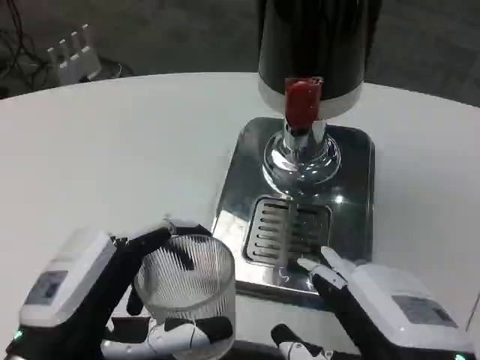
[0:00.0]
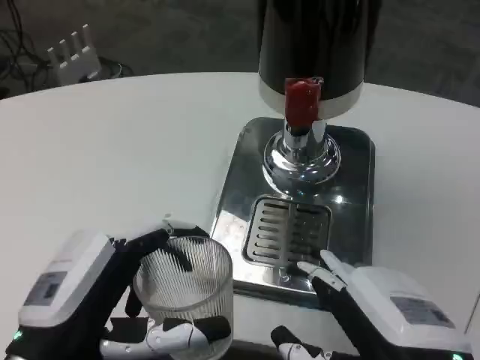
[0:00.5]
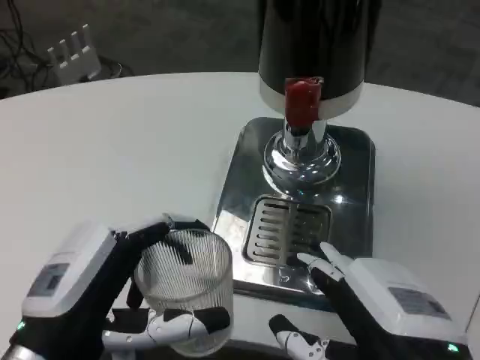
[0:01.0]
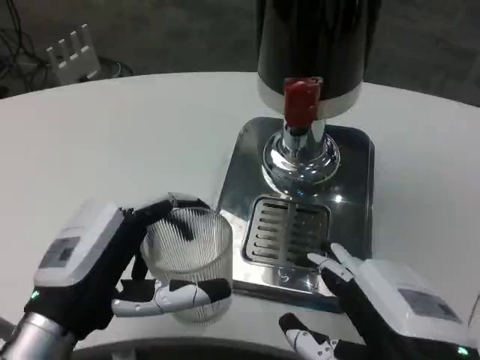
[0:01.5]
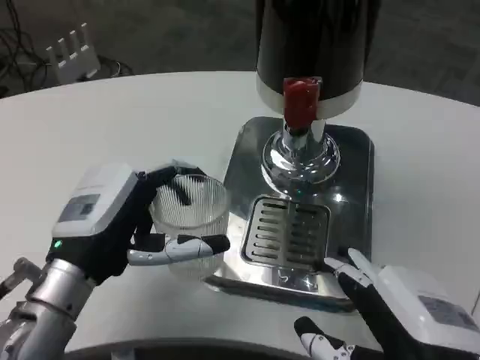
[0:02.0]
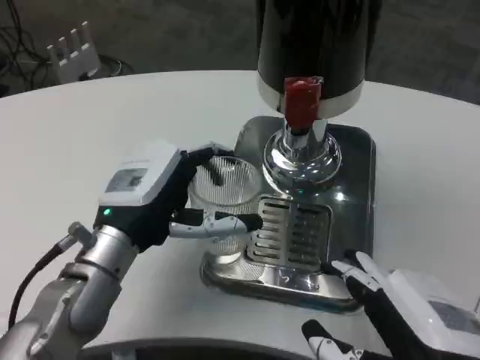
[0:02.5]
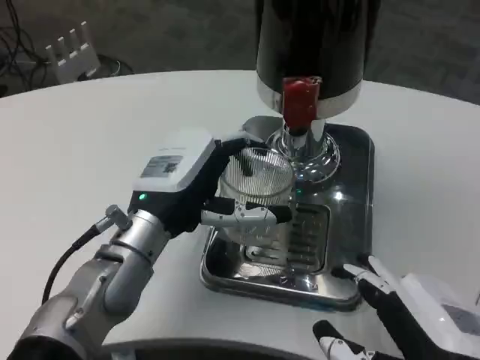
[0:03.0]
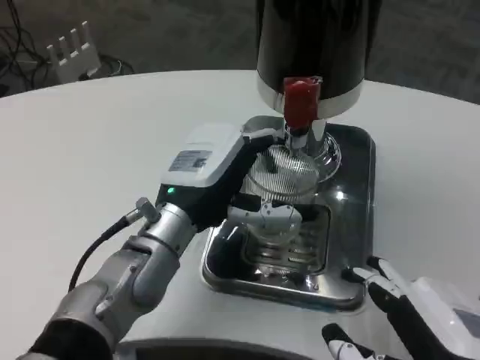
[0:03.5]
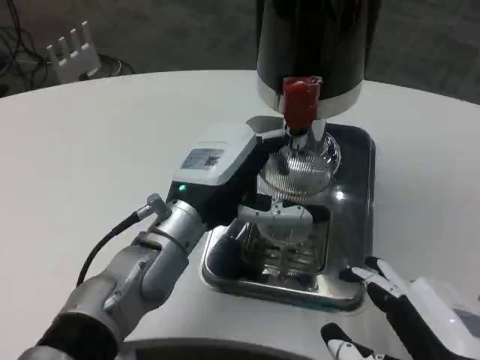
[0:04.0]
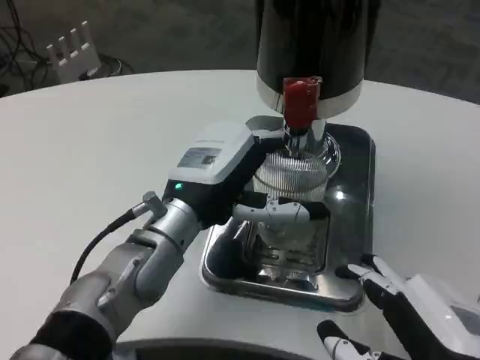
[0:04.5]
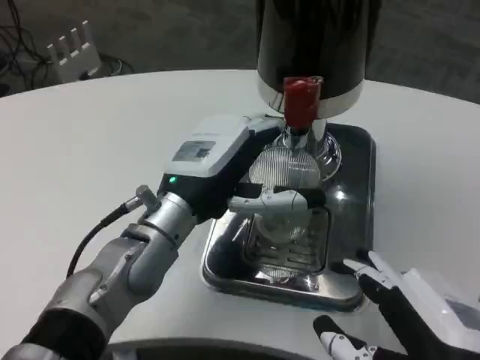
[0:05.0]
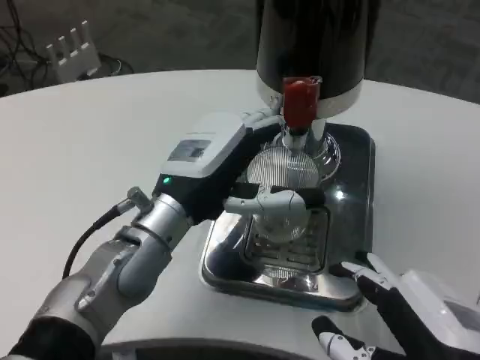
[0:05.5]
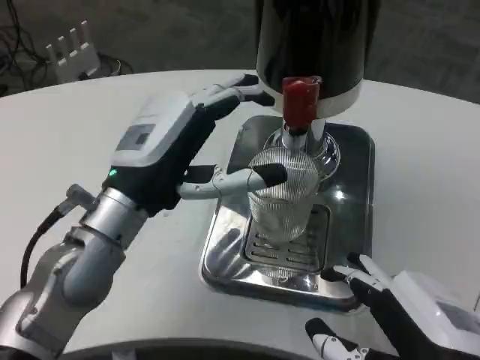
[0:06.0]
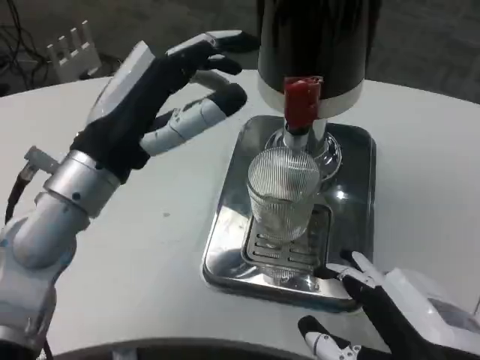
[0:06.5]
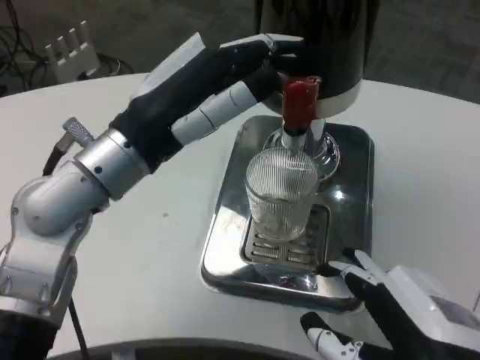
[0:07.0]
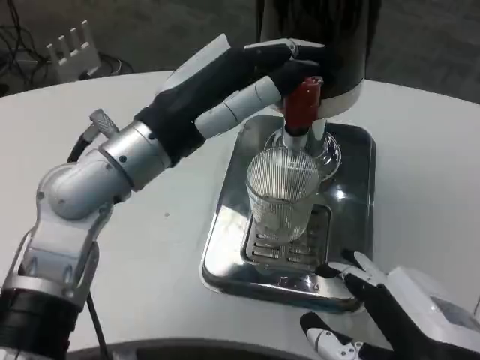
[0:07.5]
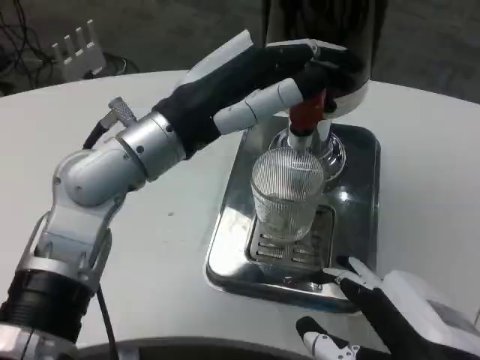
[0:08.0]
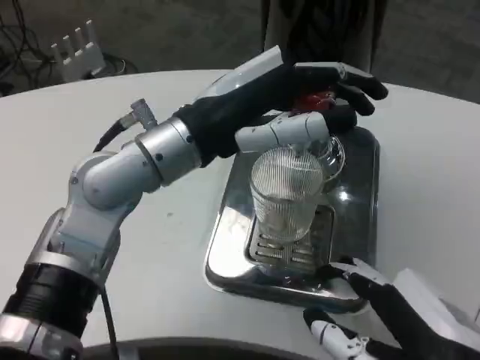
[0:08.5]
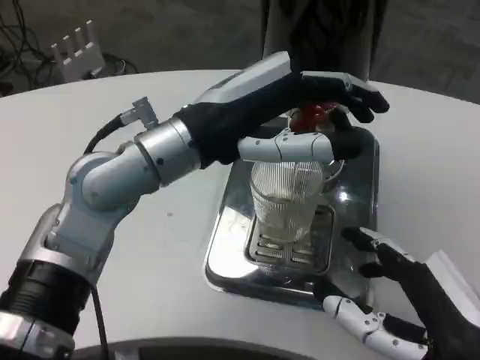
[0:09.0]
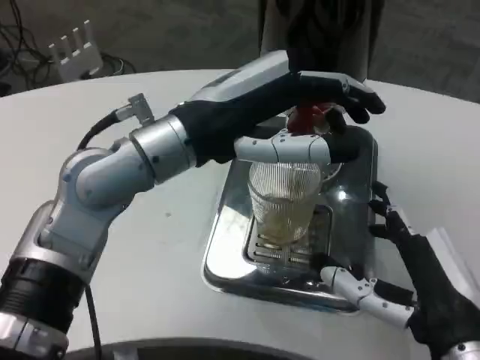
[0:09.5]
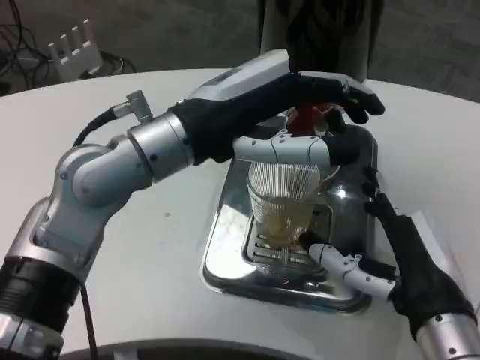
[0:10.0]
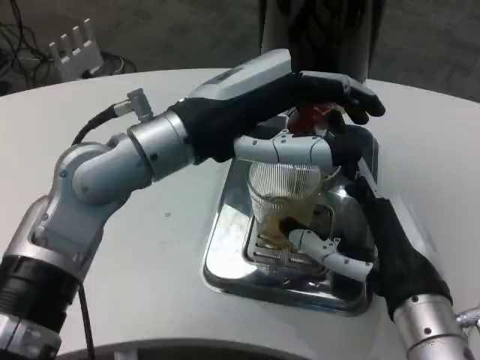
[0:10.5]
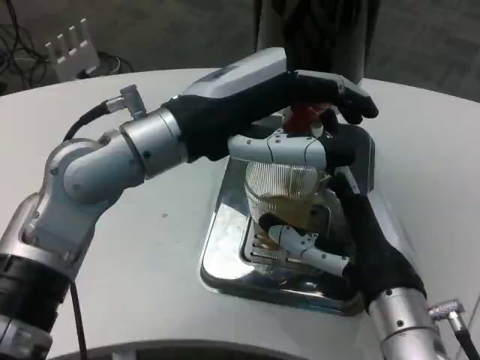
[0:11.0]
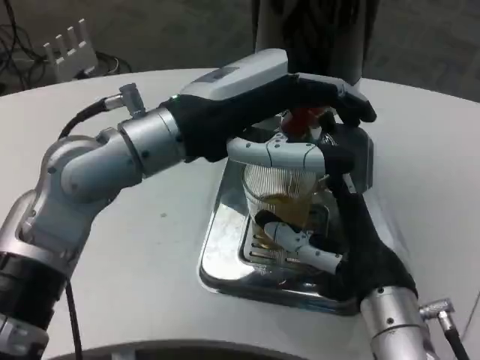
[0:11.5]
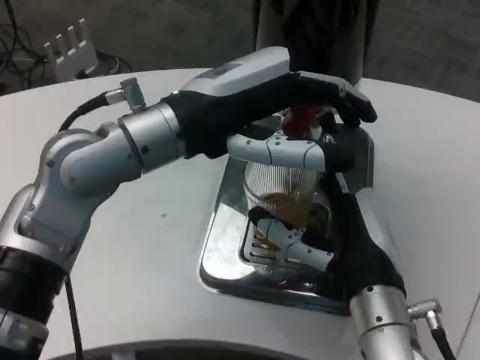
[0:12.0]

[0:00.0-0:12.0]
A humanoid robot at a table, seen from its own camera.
Task of the whole recording: Grasp the cup under the faucet to collect the drink, then remove the cup.
0:00.0 to 0:02.0: The left hand goes some 10 cm forward.
0:02.0 to 0:04.0: The left hand travels to the right and forward by roughly 10 cm.
0:04.0 to 0:06.0: The left hand moves to the left, some 5 cm.
0:06.0 to 0:08.0: The left hand is displaced upward by roughly 5 cm.
0:08.0 to 0:10.0: The right hand travels forward by about 10 cm.
0:10.0 to 0:12.0: The right hand shifts approximately 5 cm to the left.

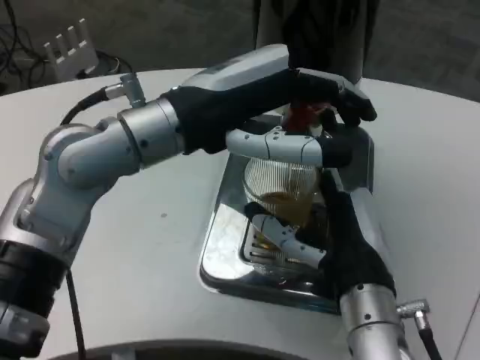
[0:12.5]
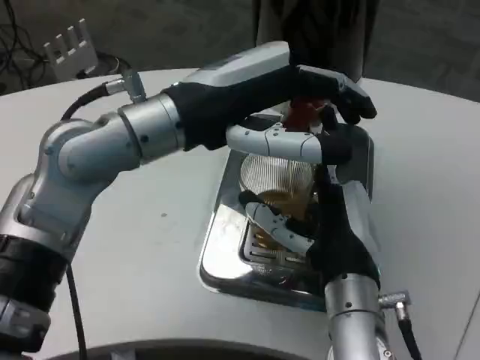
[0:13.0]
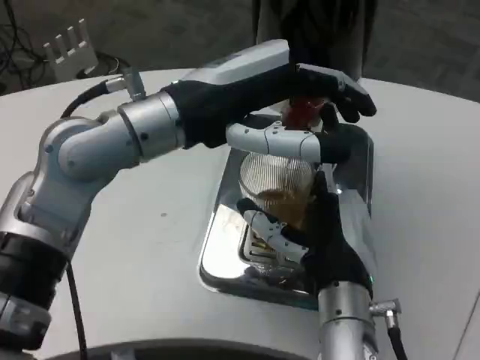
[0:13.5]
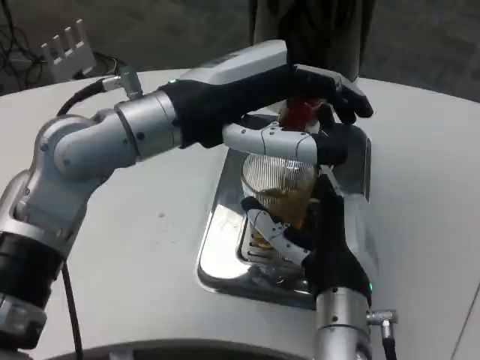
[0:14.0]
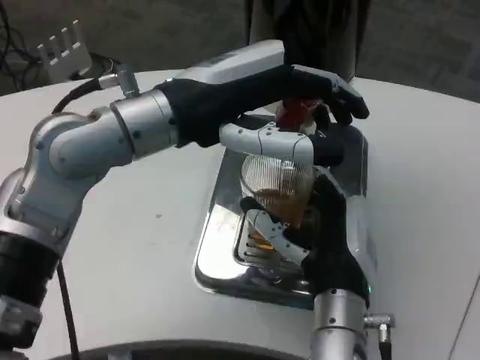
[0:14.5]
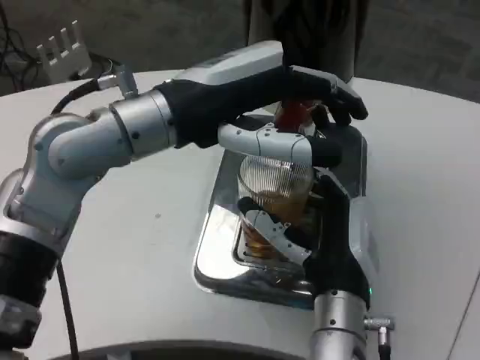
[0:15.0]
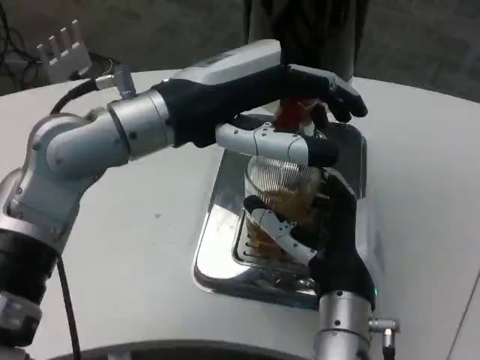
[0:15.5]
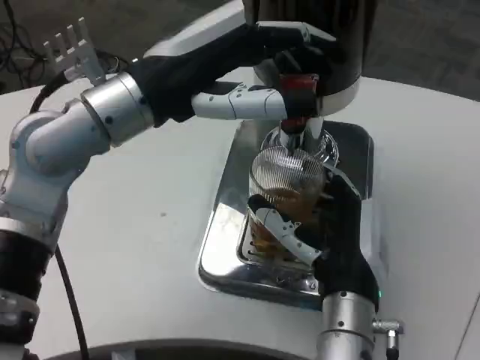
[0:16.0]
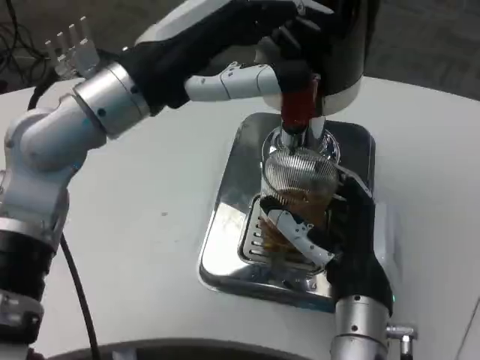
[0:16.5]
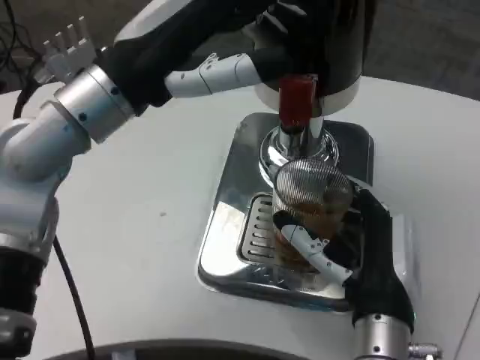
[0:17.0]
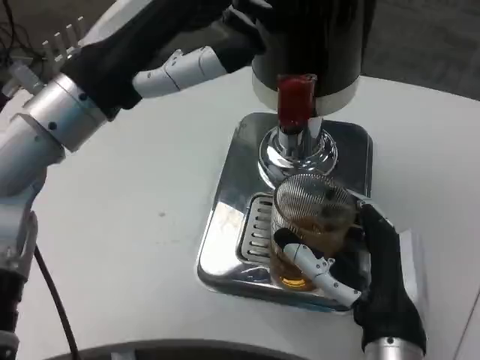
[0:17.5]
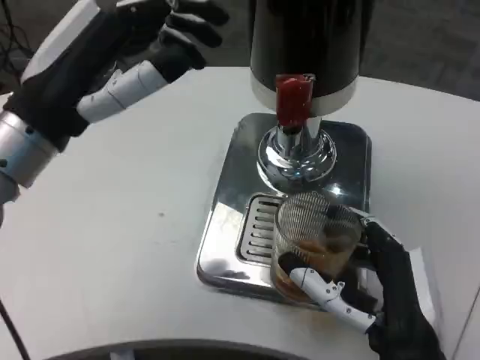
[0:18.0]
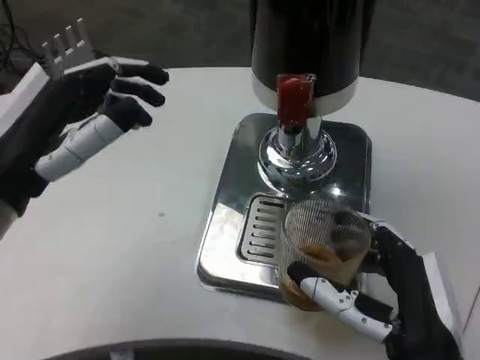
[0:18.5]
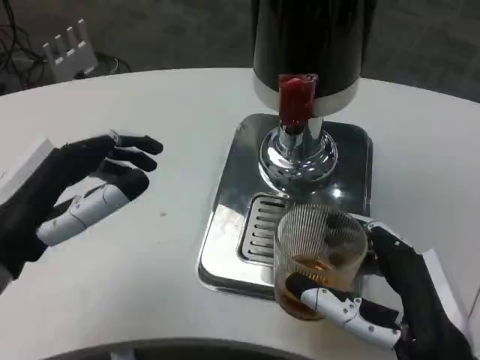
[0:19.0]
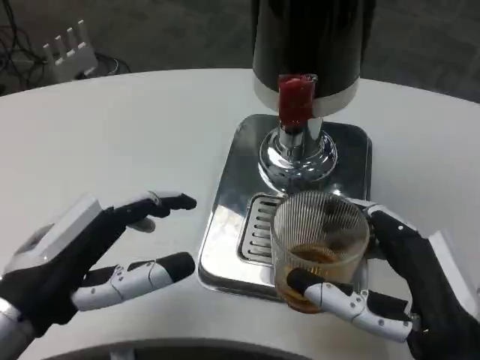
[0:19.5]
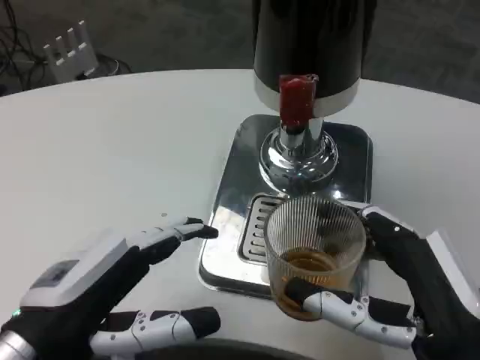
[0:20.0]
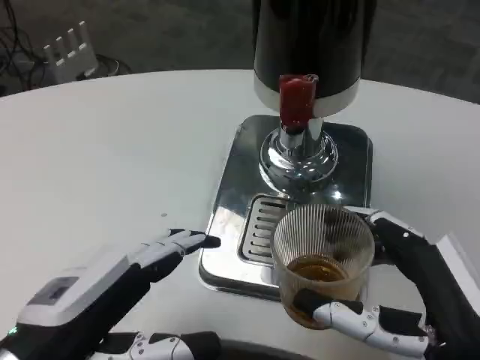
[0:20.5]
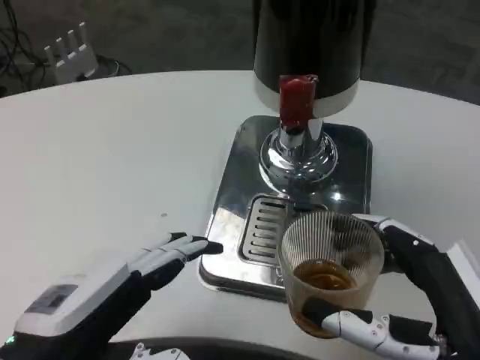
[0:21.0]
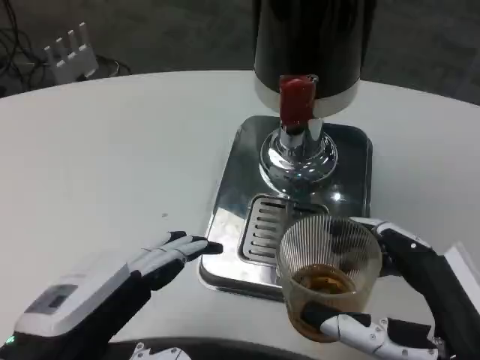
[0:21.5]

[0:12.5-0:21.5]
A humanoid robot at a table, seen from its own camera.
Task of the whole recording: Grasp the cup under the faucet to collect the drink, then remove the cup.
0:17.0 to 0:19.5: The right hand shifts approximately 10 cm backward and to the right; the left hand is displaced downward, backward and to the left by roughly 20 cm.

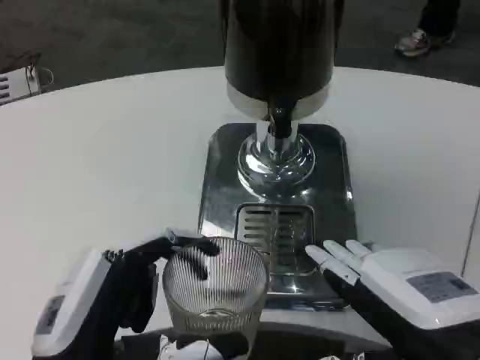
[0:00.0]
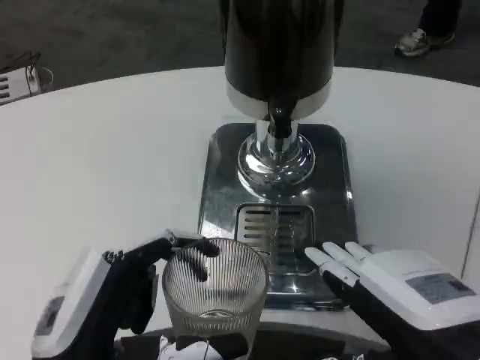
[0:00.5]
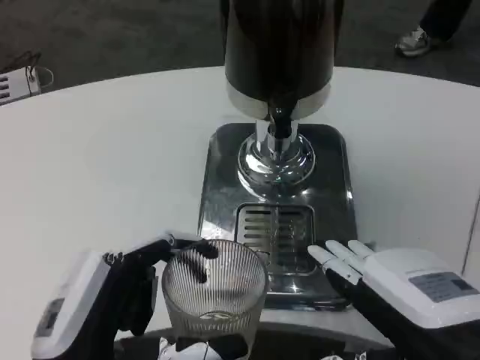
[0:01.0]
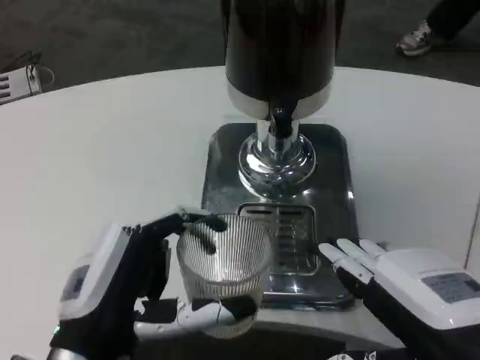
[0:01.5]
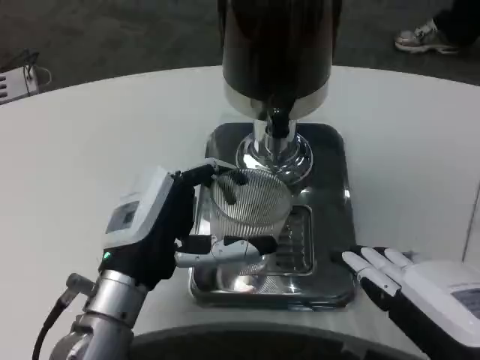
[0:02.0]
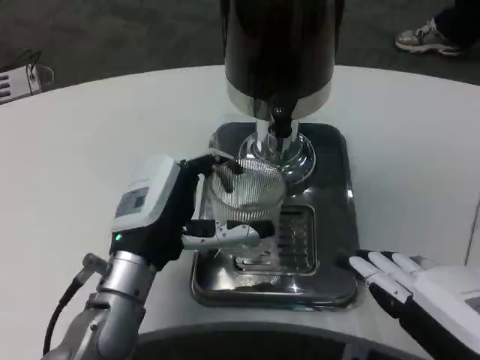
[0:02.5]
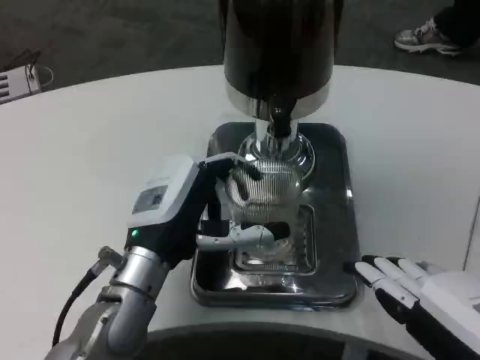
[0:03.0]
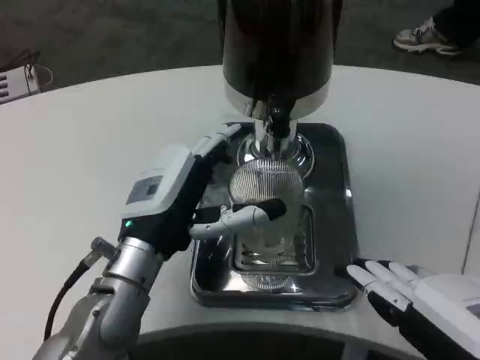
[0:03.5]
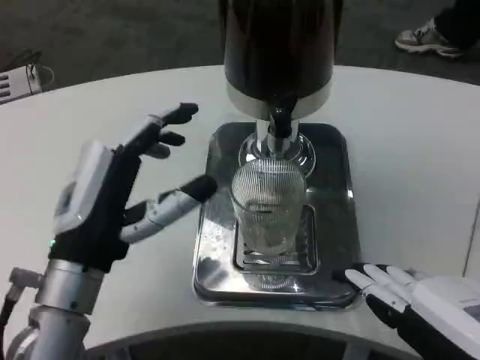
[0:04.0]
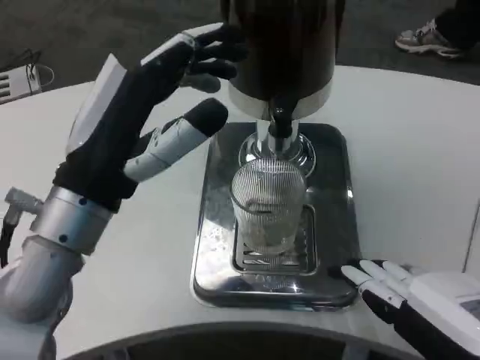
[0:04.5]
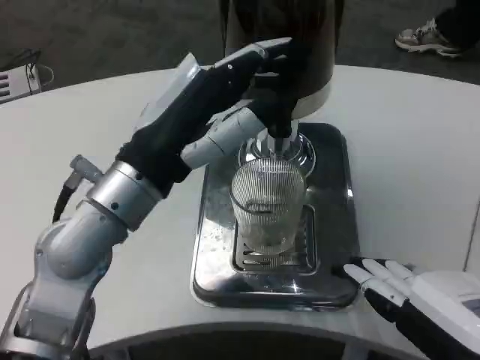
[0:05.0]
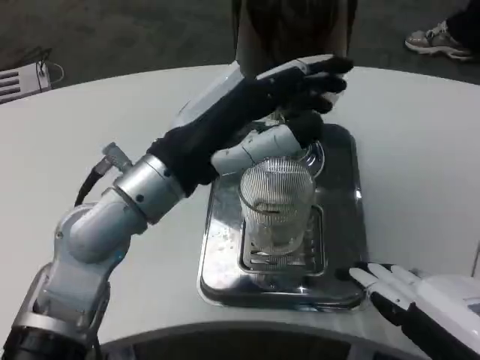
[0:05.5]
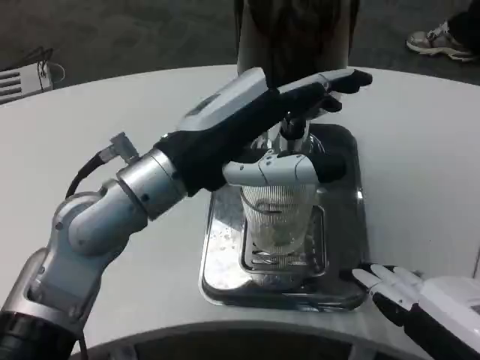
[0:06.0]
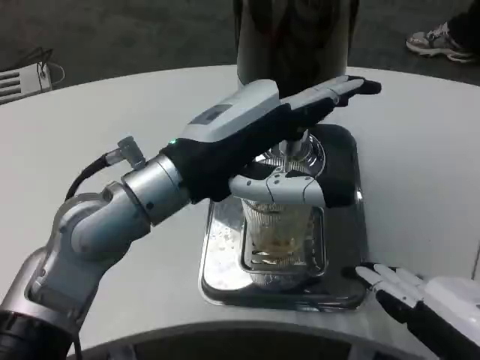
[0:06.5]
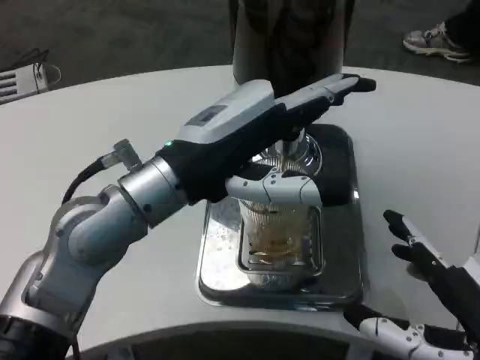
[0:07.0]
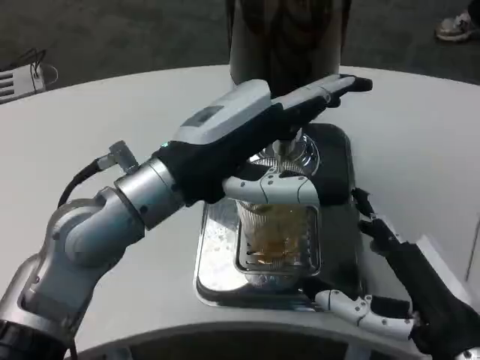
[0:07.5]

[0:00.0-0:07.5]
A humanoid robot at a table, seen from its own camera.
Task of the whole recording: Grasp the cup under the faucet to collect the drink, then remove the cup.
0:00.0 to 0:02.0: The left hand travels forward by about 10 cm.
0:04.0 to 0:05.5: The left hand shifts some 10 cm upward.
0:05.5 to 0:07.5: The right hand moves forward and downward, some 10 cm.
